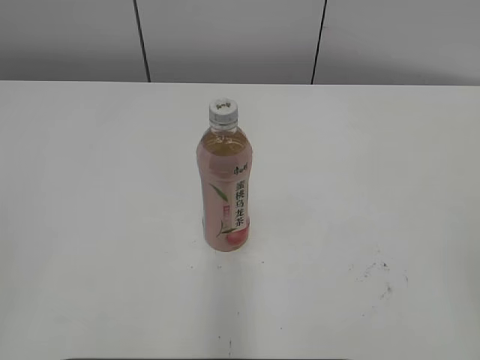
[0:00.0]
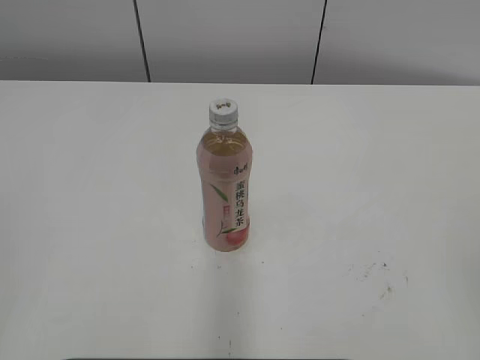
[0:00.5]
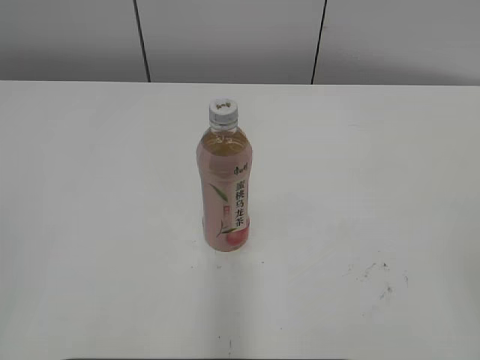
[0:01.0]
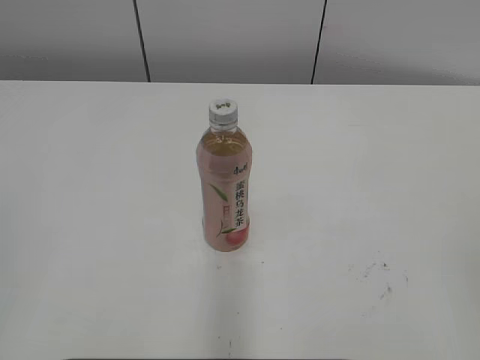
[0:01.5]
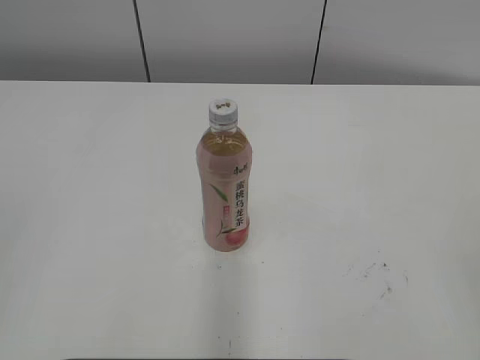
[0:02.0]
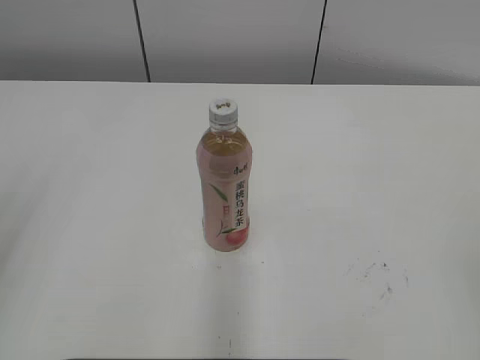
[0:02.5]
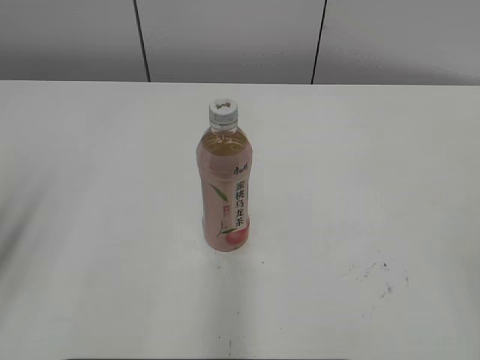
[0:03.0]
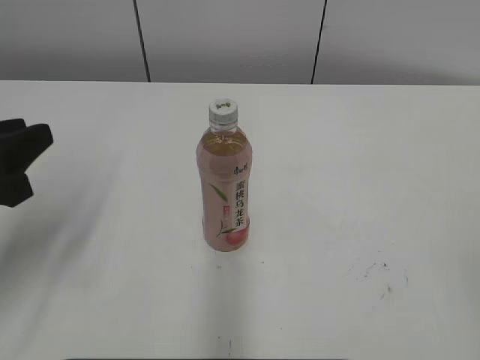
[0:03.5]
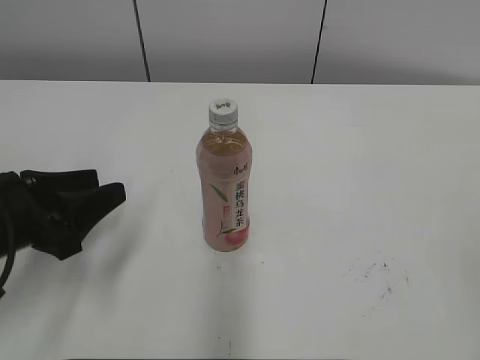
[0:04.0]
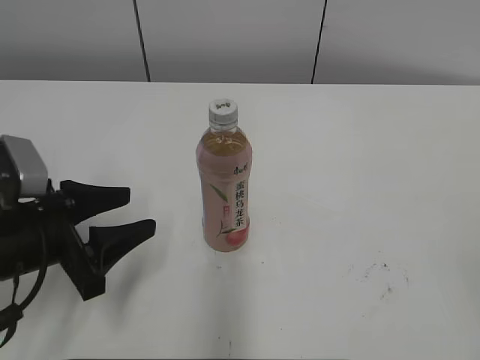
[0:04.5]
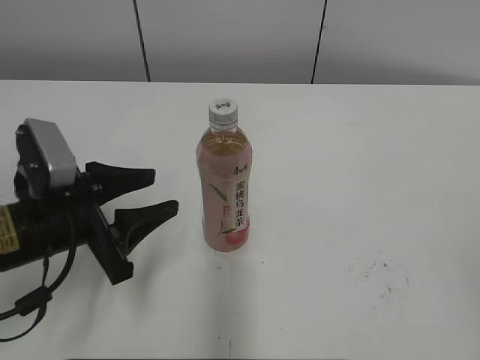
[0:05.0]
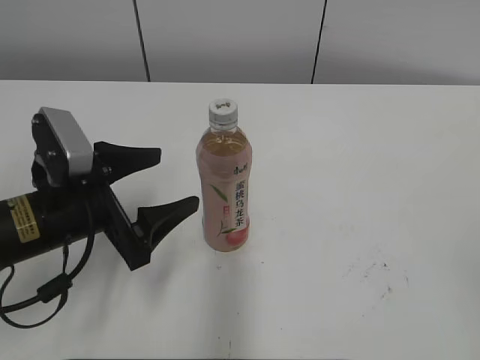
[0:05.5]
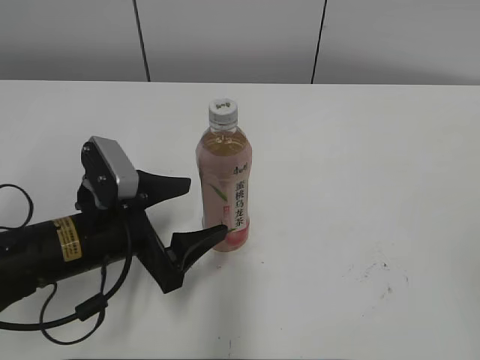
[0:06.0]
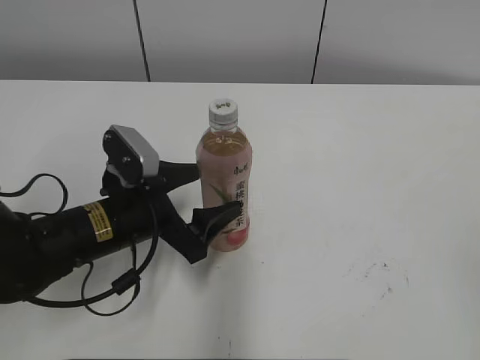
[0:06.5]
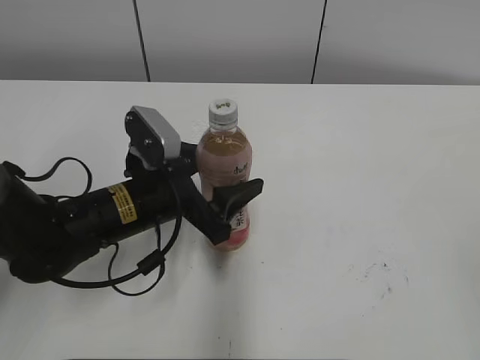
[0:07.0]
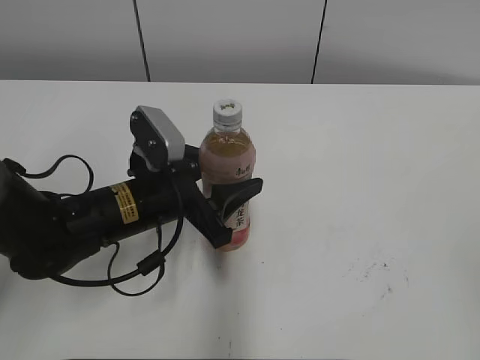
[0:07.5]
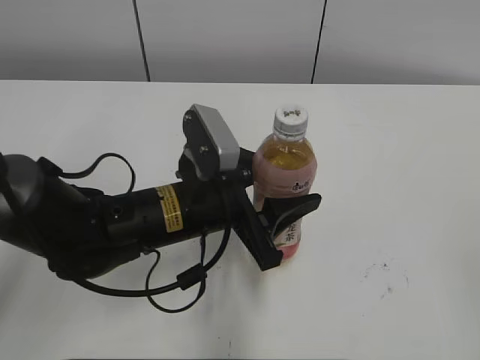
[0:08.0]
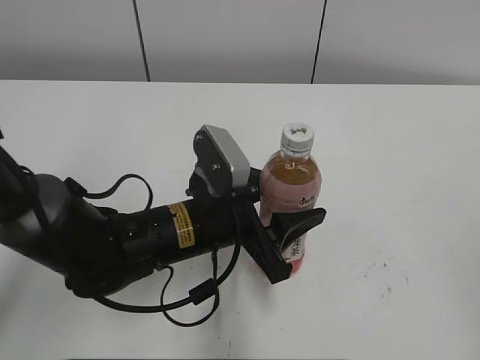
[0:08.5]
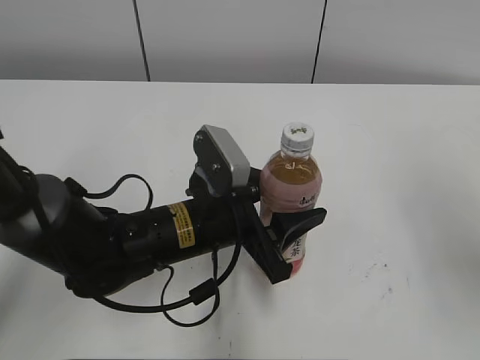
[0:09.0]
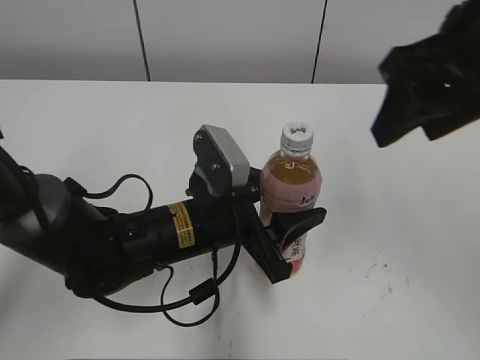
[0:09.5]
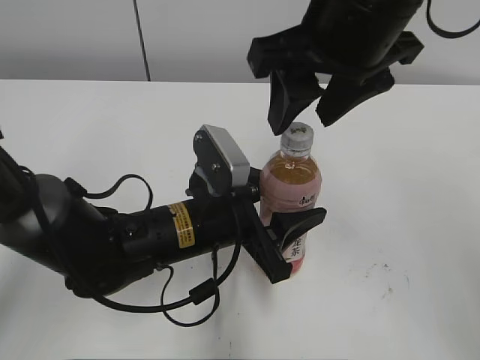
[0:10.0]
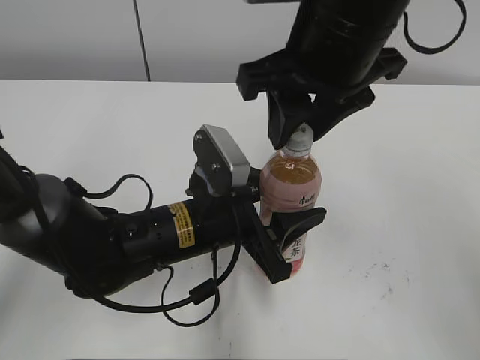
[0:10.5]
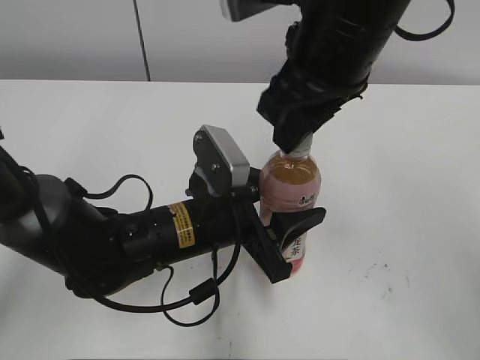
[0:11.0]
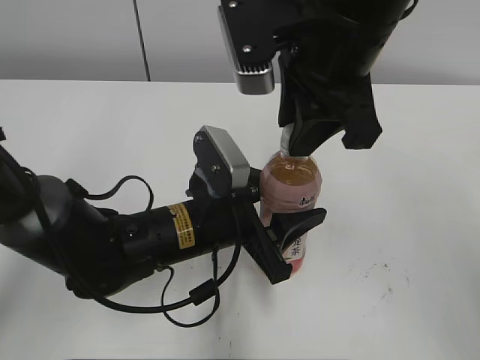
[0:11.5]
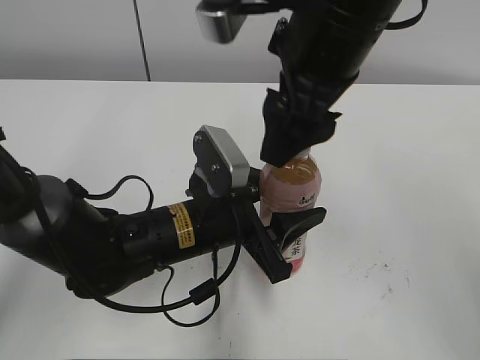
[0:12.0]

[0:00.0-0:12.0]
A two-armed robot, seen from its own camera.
Step, 0:00.0 to 0:07.0: Grab the Peach Oolong Tea with the left hand.
Step, 0:07.5 to 0:10.0: Move the Peach Oolong Tea from left to right.
0:02.0 to 0:04.0: The left gripper heads forward and downward, covering roughly 25 cm, and opens its fingers.
0:04.0 to 0:06.0: The left gripper shifts some 10 cm to the right, and opens its fingers.
0:06.0 to 0:08.0: The left gripper travels to the right by approximately 10 cm, and closes.
0:08.0 to 0:10.0: The right gripper goes approximately 35 cm forward and to the left.
0:10.0 to 0:12.0: The right gripper opens its fingers.

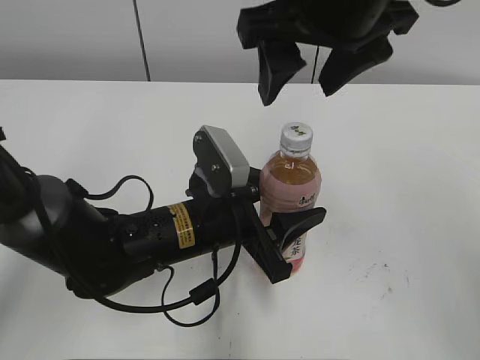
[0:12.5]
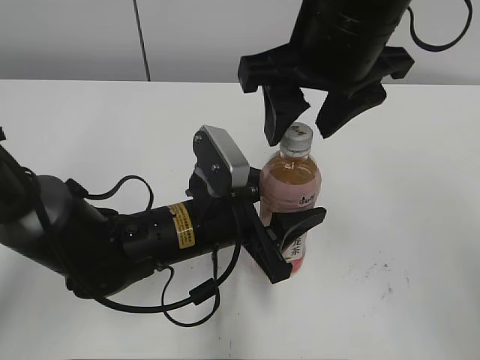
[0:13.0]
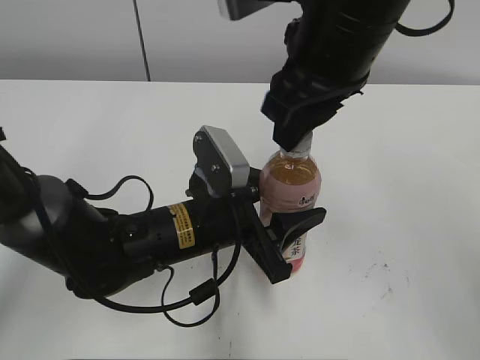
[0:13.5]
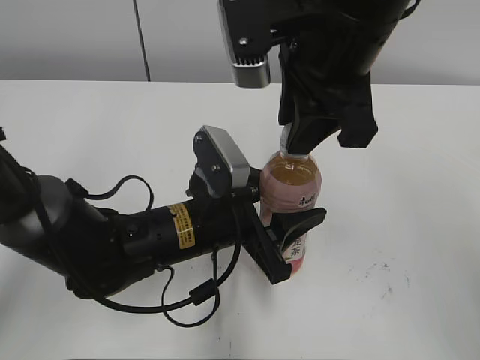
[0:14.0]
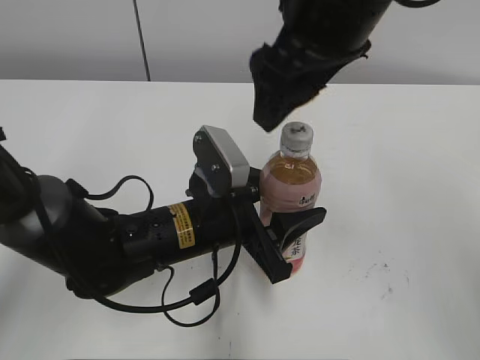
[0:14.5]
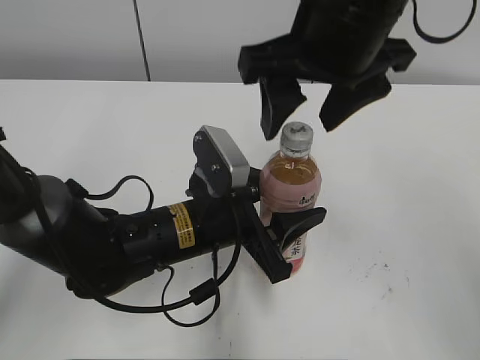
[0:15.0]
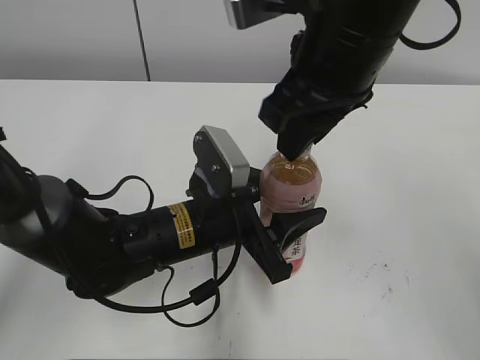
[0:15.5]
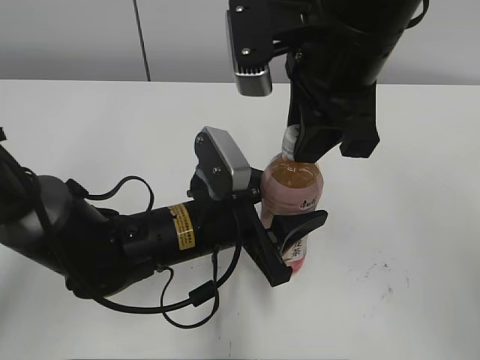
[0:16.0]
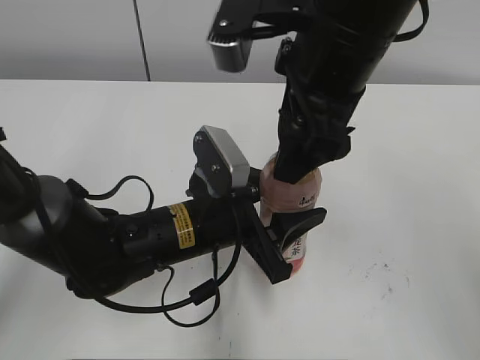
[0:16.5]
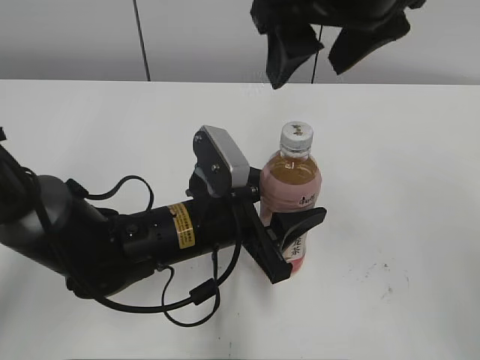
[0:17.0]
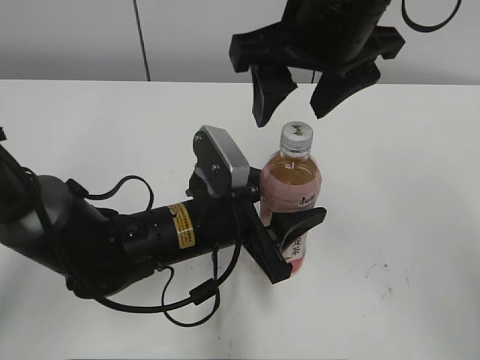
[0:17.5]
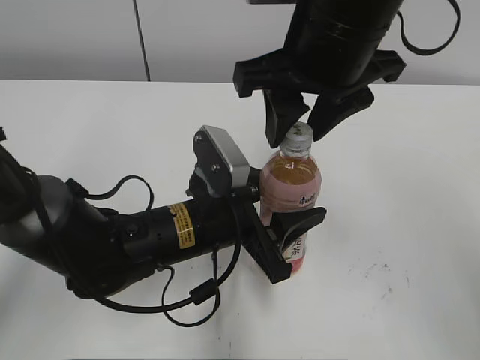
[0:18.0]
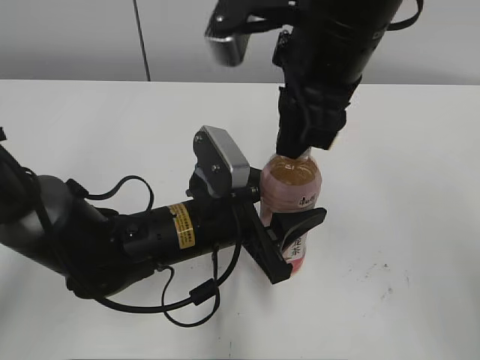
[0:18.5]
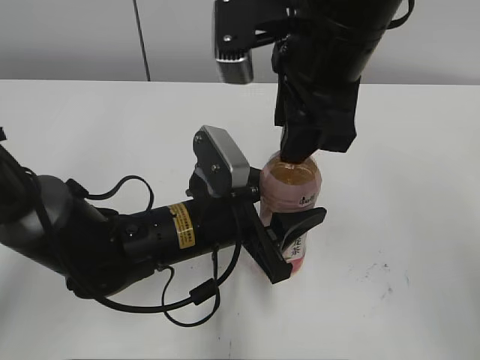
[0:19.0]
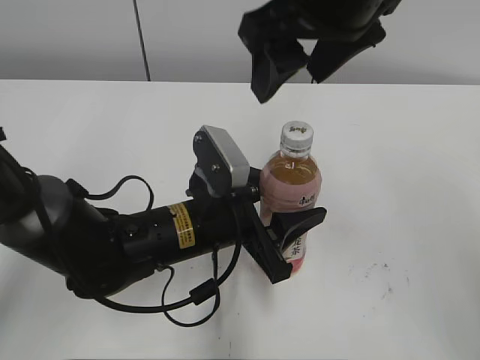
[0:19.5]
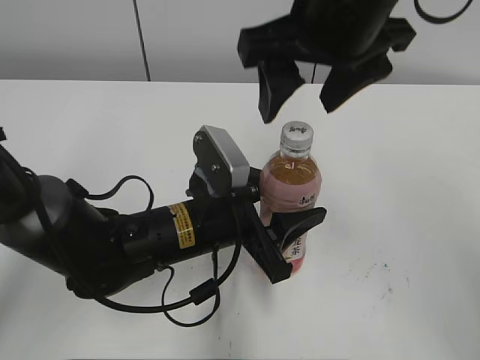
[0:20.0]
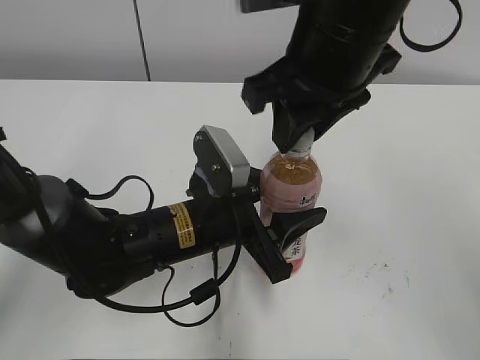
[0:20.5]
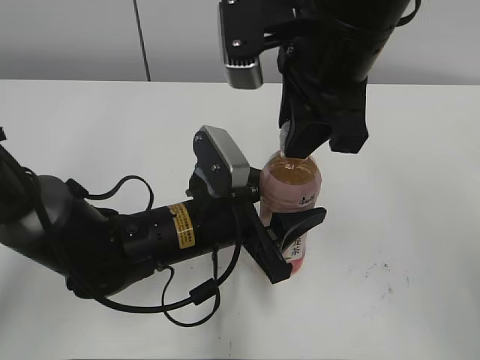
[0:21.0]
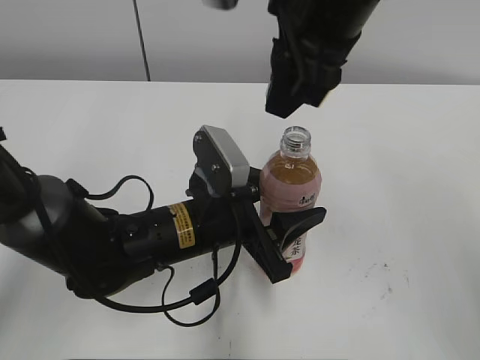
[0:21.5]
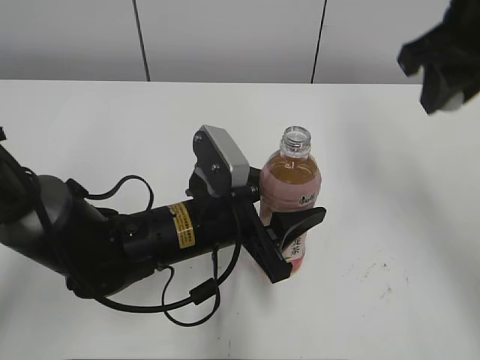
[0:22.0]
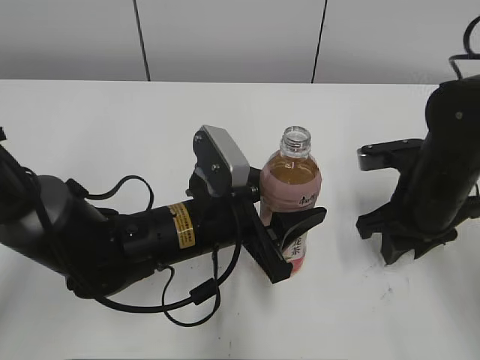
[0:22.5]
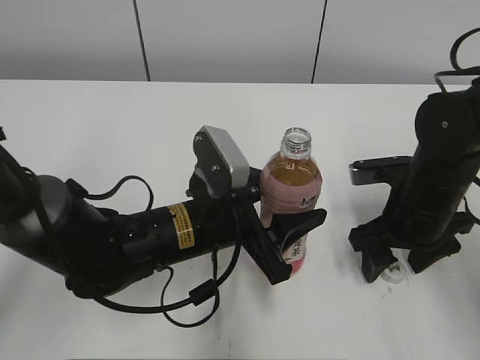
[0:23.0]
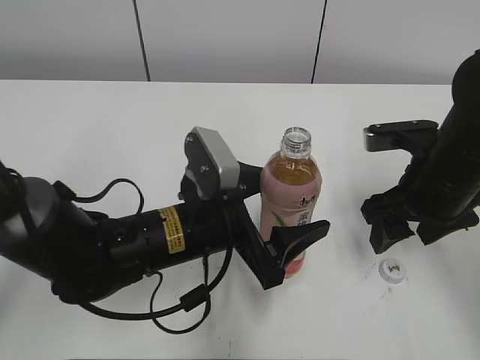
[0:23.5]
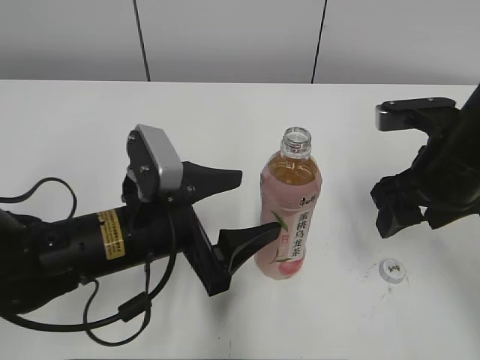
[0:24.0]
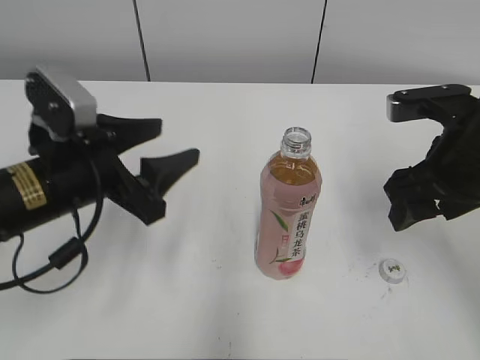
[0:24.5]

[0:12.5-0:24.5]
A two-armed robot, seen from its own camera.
Step, 0:21.5 to 0:22.5: Place the bottle cap on the right.
0:12.5 to 0:14.5: The right gripper closes and opens again.
0:14.5 to 0:16.5: The right gripper closes, then reopens.
0:16.5 to 0:18.5: The right gripper closes up.
0:18.5 to 0:20.5: The right gripper opens and closes again.
0:20.5 to 0:22.5: The right gripper shifts roughly 20 cm downward and to the right.
0:22.5 to 0:24.5: The left gripper heads to the left and upward, covering some 15 cm, and opens, then closes once more. Meanwhile the right gripper goes about 5 cm upward, and opens.

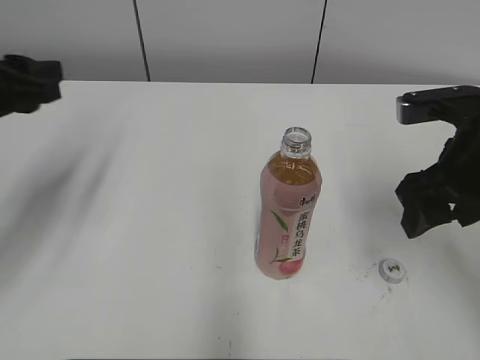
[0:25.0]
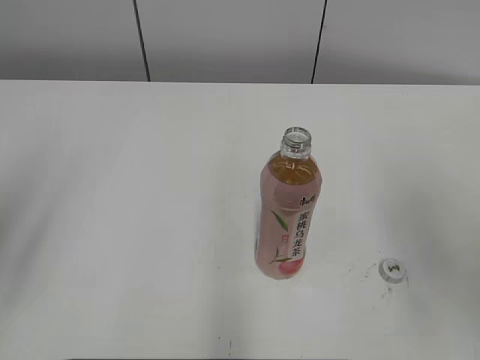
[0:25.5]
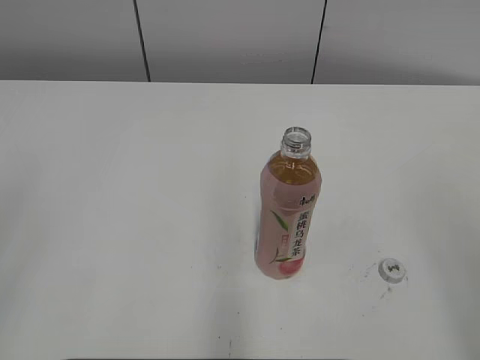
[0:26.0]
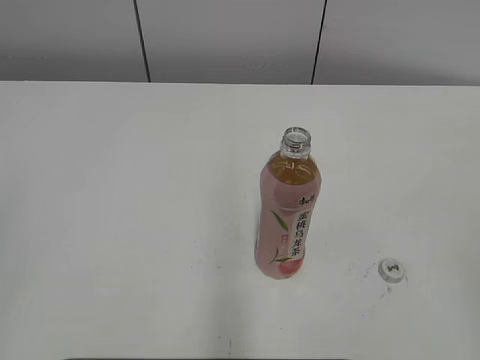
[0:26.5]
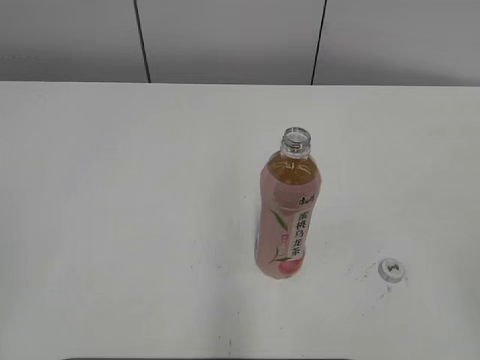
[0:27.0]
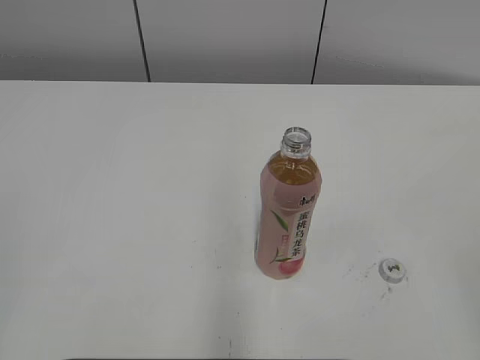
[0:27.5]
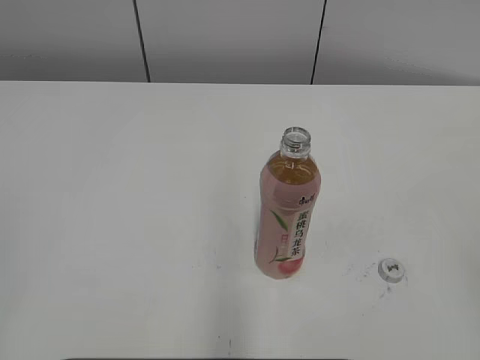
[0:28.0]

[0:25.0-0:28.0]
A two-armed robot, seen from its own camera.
0:25.0 to 0:26.5: Both grippers move backward, roughly 25 cm.
